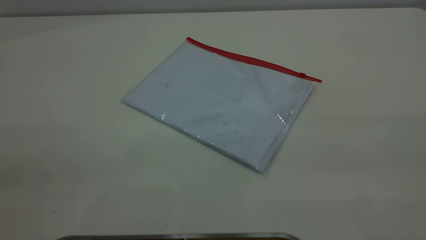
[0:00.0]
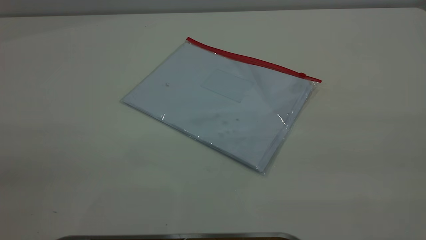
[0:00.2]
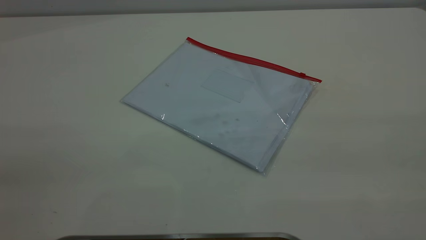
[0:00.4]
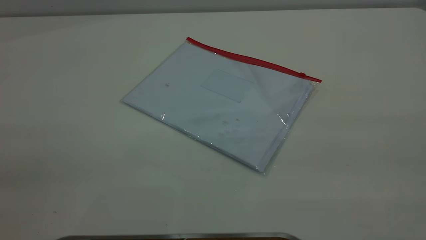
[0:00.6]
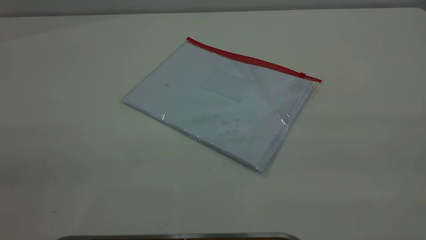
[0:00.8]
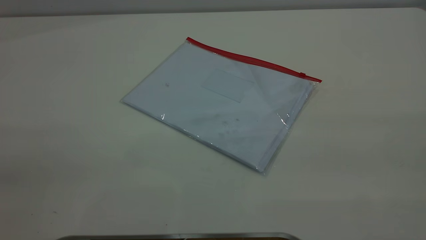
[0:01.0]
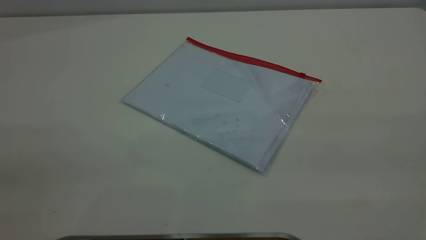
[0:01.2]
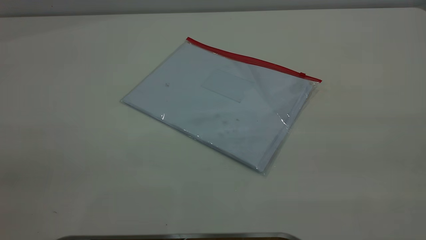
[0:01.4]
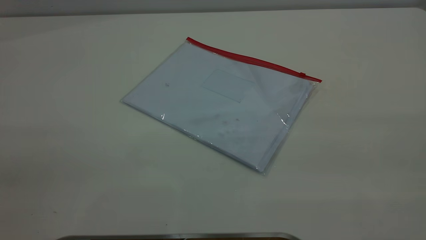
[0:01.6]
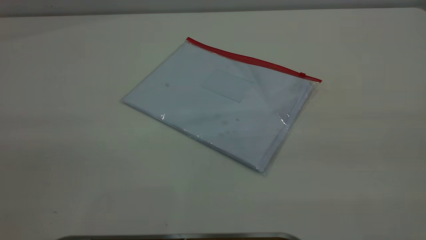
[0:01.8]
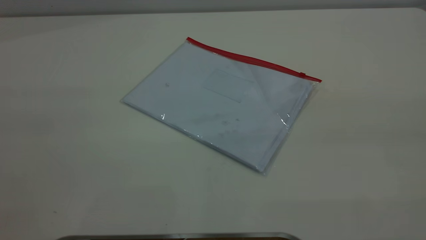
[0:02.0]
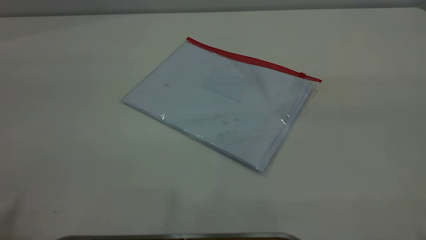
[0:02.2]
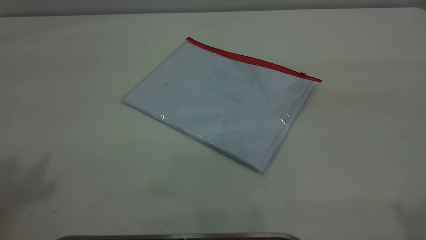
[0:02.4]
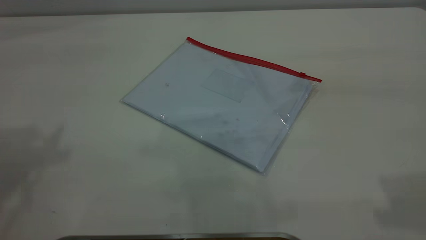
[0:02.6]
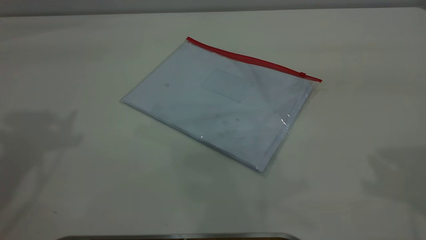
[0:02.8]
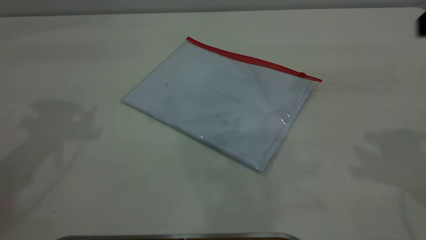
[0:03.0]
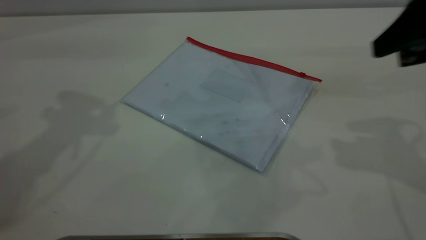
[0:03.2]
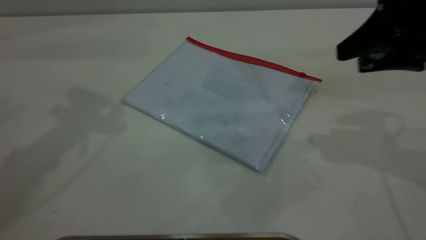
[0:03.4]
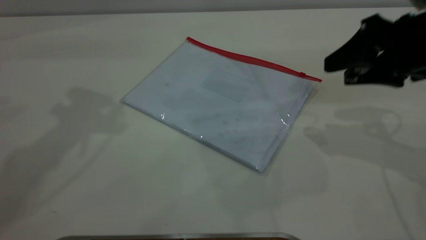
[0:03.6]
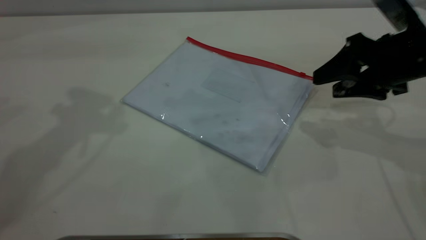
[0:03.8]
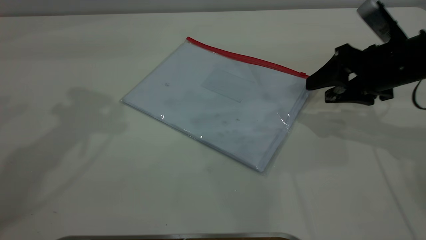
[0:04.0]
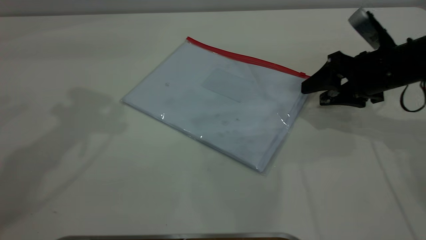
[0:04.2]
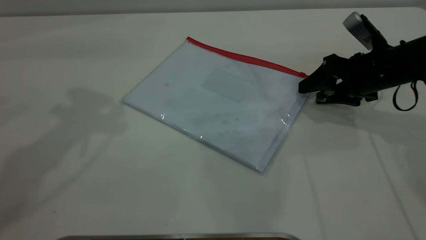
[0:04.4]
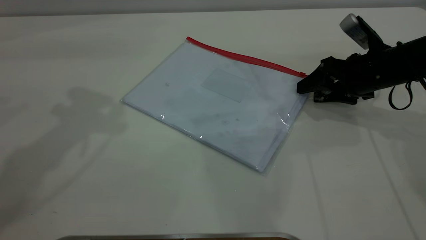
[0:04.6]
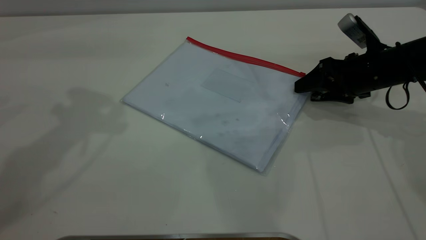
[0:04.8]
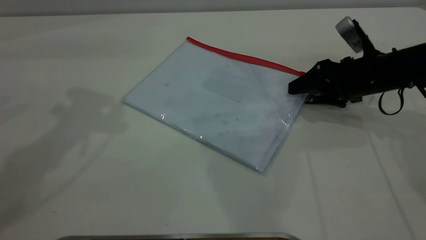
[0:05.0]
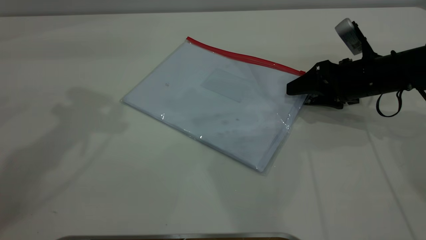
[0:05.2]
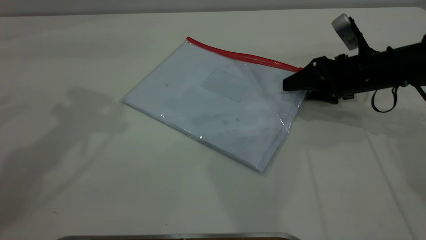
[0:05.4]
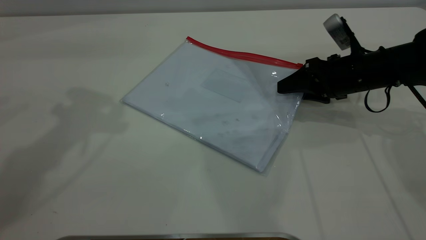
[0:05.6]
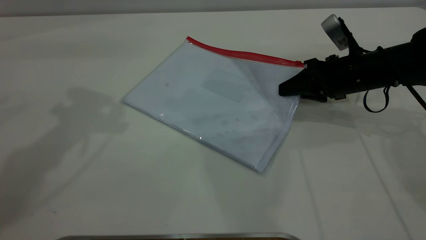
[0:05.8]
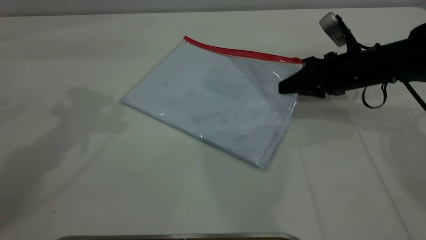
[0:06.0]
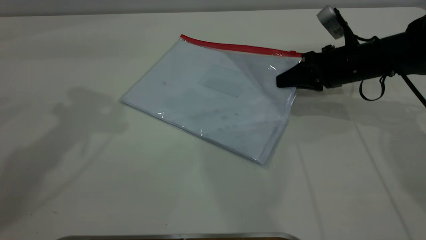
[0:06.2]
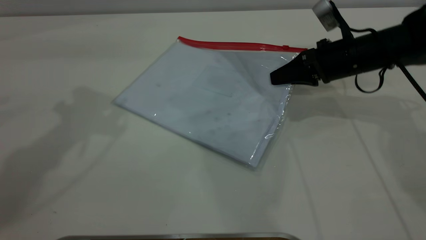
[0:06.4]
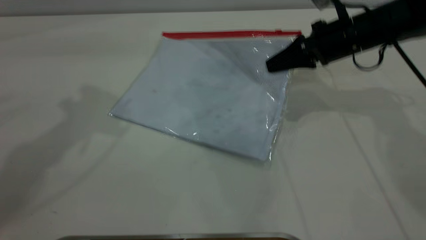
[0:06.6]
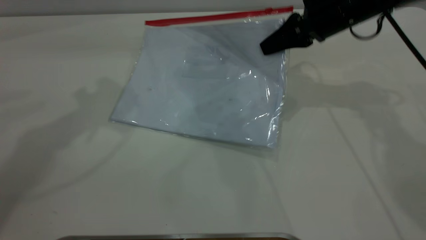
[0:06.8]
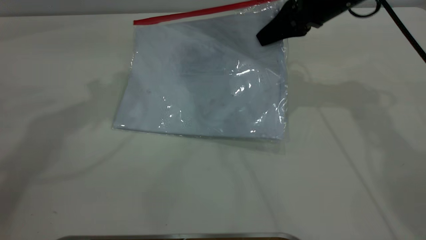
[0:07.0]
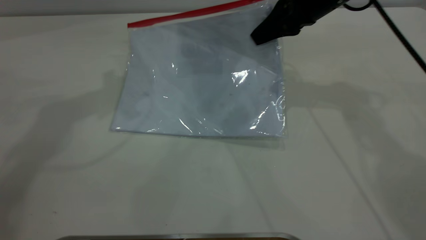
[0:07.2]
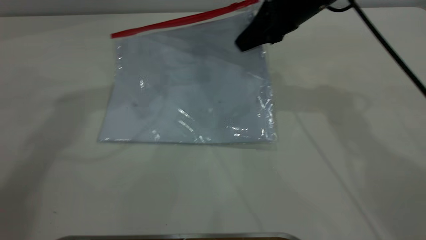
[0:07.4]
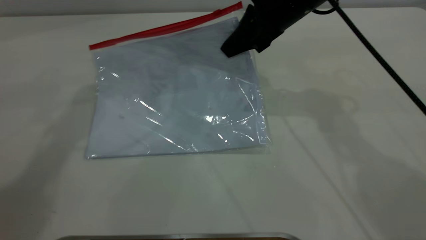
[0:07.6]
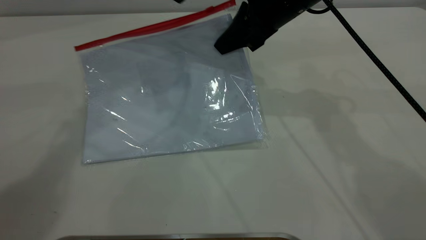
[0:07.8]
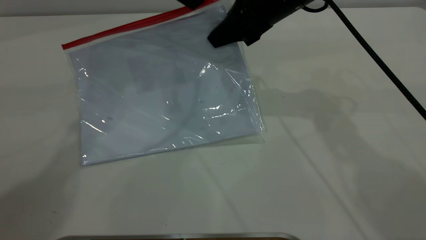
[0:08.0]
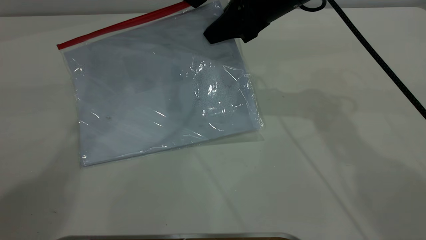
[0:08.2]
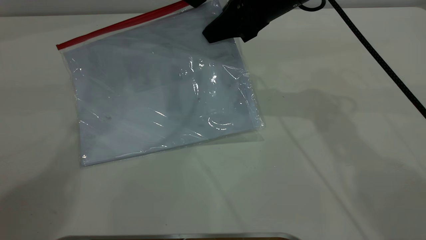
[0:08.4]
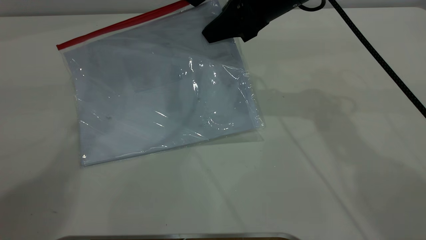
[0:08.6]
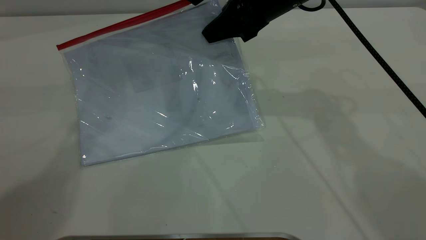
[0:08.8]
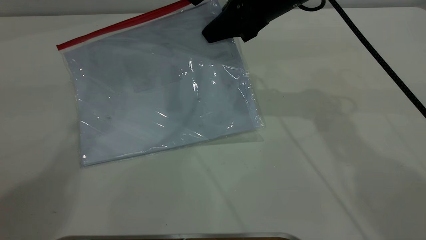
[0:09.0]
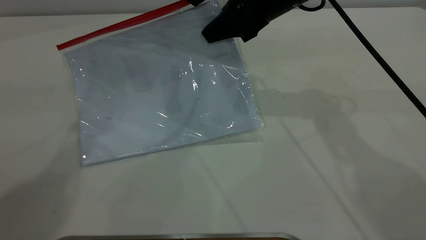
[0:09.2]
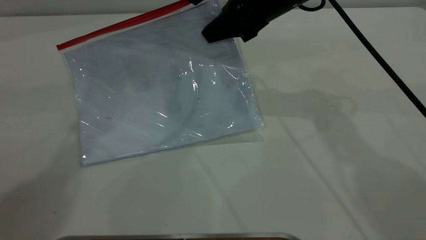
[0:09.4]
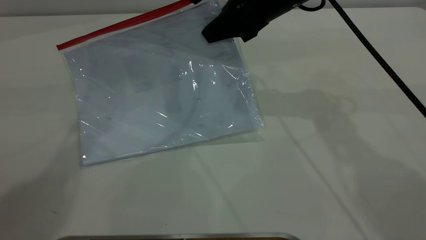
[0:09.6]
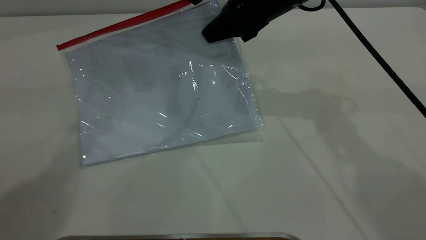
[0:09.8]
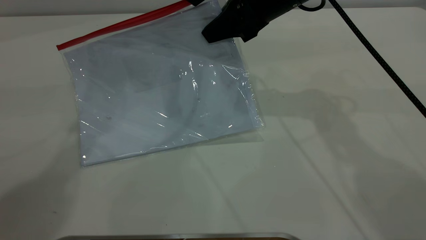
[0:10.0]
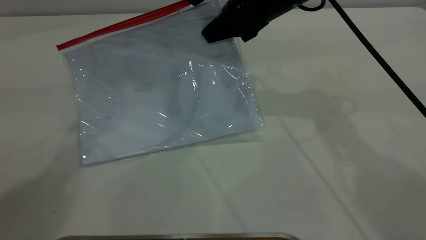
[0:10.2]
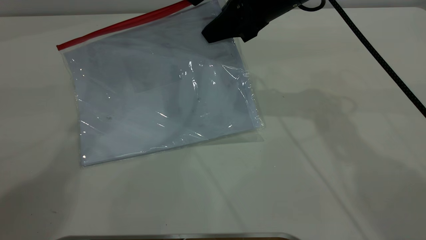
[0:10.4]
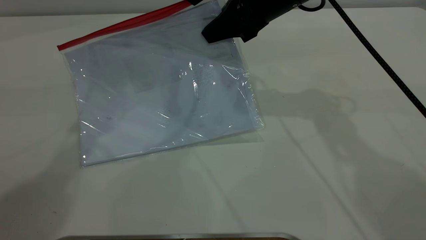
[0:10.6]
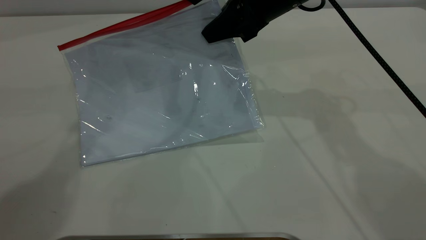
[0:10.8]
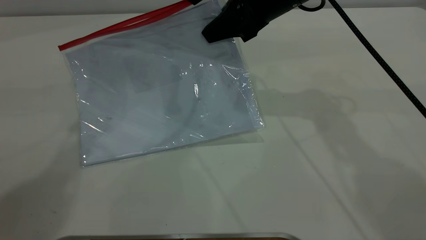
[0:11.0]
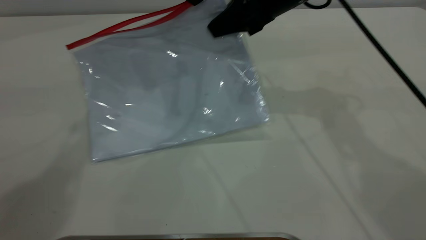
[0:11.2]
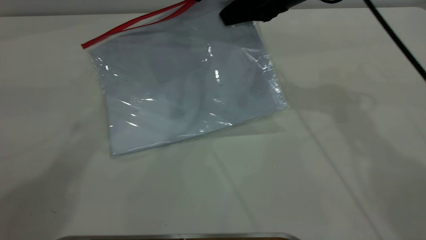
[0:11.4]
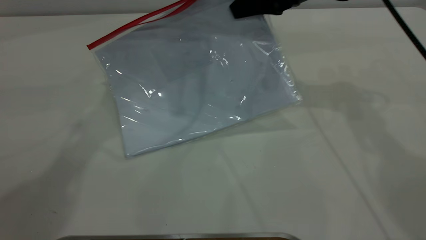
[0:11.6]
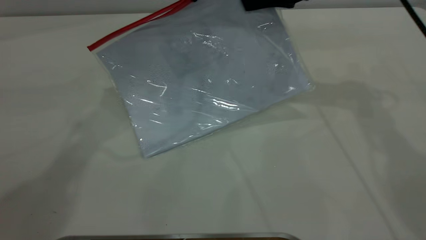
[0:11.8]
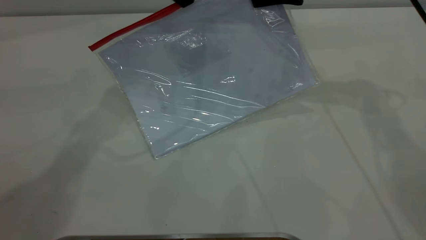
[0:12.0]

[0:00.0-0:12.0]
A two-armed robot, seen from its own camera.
Step, 0:00.0 to 0:07.0: Pick up the transparent plastic bag with the right gripper.
0:00.0 to 0:01.6: Both grippers stay about where they are.
0:03.0 to 0:04.4: The right gripper is displaced downward and forward by roughly 25 cm.
0:04.4 to 0:06.0: The right gripper closes.
0:06.0 to 0:07.6: The right gripper is displaced upward and to the left by roughly 20 cm; the left gripper shifts approximately 15 cm to the right and forward.
0:07.6 to 0:09.0: The grippers move only a little.
0:10.4 to 0:12.0: The right gripper heads to the right, covering roughly 10 cm.

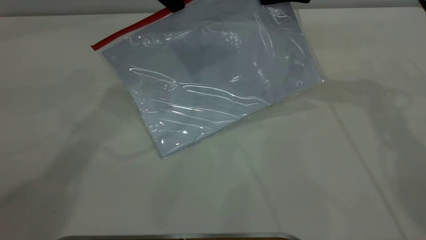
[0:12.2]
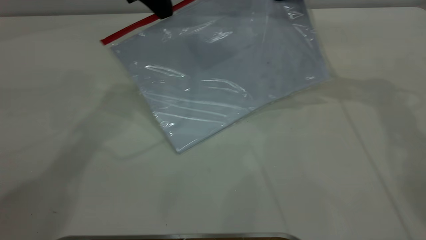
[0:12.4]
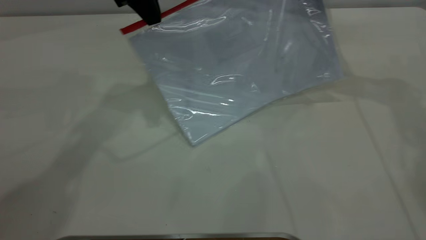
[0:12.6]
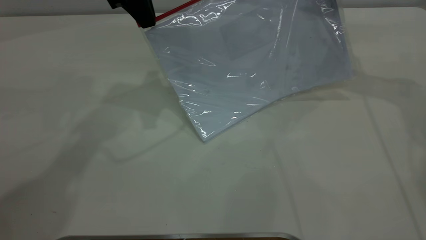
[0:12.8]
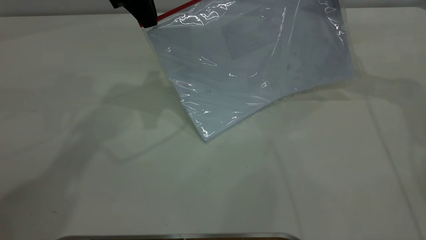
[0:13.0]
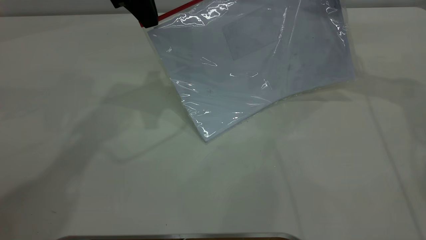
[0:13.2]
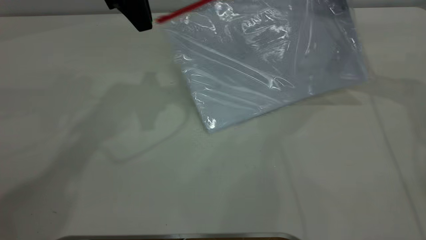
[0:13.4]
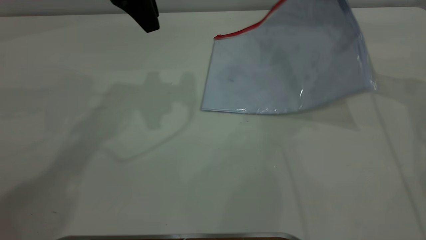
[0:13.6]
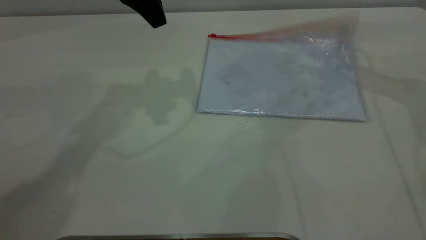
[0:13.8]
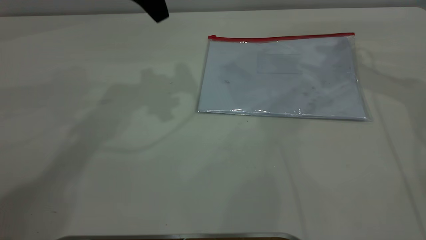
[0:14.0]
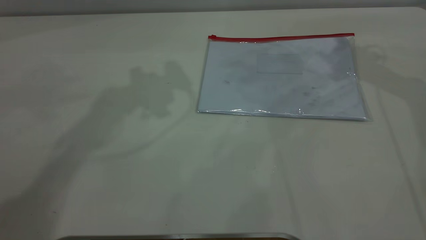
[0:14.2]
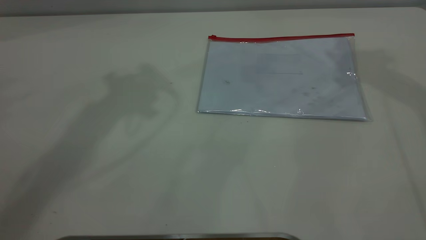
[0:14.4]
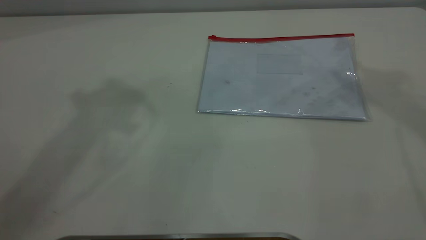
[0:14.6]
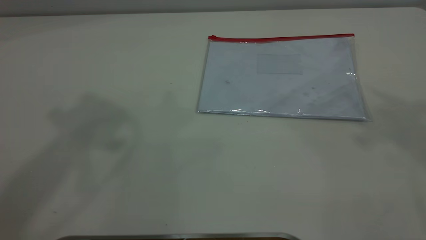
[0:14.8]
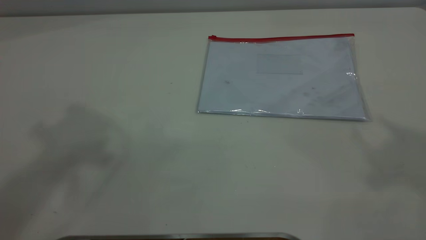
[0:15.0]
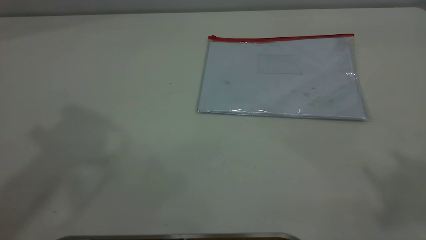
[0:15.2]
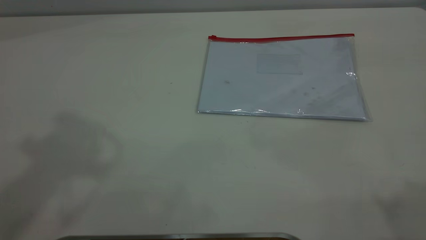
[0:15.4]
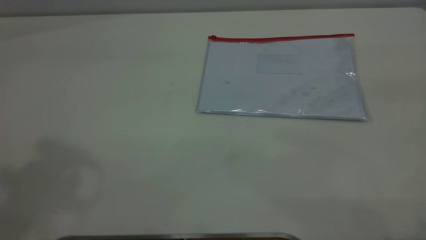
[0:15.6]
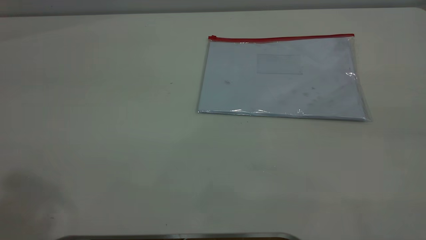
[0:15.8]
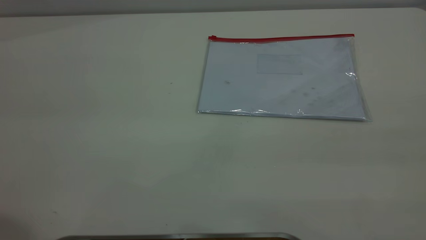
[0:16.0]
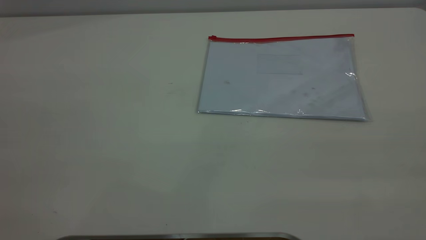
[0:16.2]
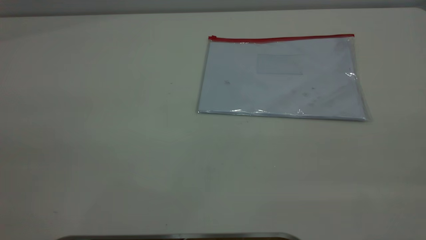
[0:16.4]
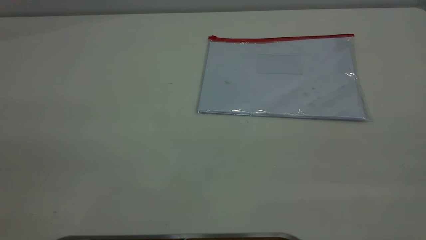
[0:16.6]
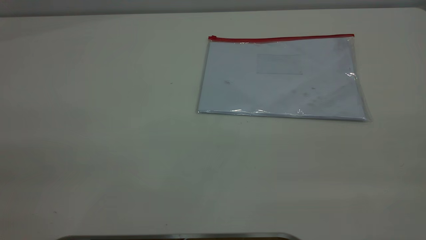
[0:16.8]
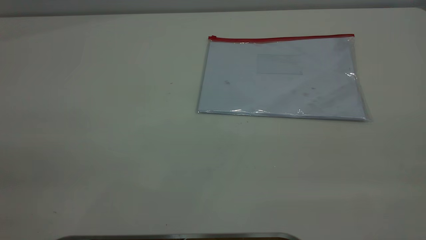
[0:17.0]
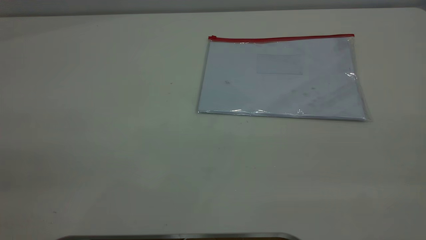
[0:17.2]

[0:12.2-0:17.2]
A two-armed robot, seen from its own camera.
Step, 0:13.6 to 0:14.4: Place the transparent plastic bag.
0:12.2 to 0:13.8: The right gripper travels to the right by some 10 cm, and opens up. The left gripper opens its fingers.
0:13.8 to 0:15.6: The right gripper shifts some 40 cm backward and upward, while the left gripper moves backward, upward and to the left, roughly 35 cm.
